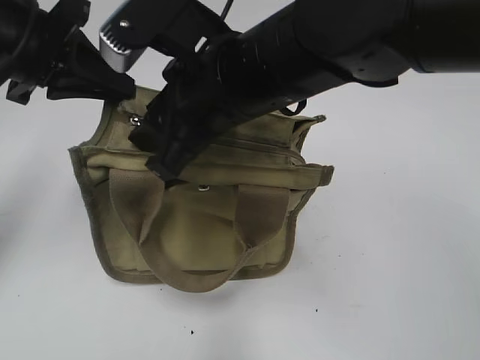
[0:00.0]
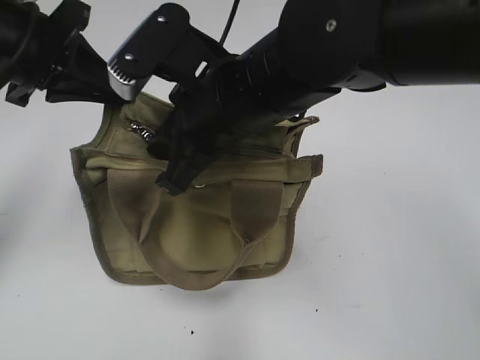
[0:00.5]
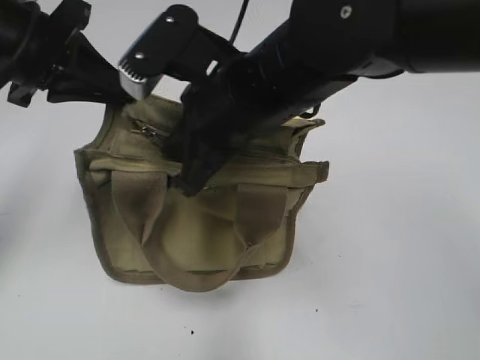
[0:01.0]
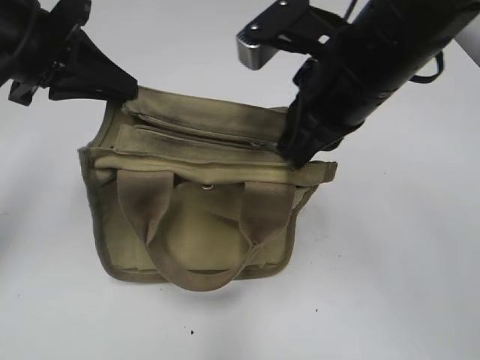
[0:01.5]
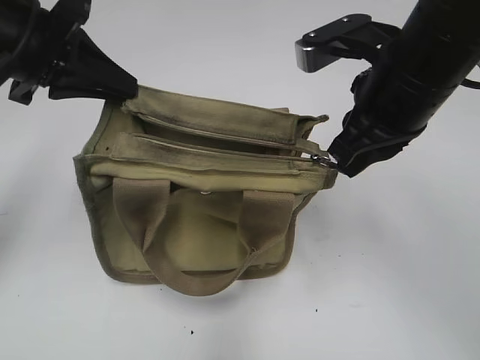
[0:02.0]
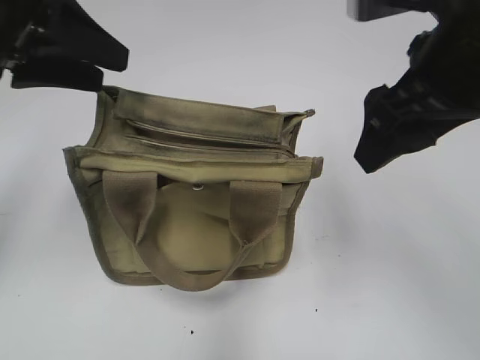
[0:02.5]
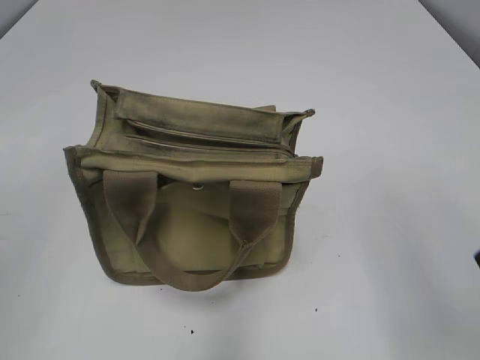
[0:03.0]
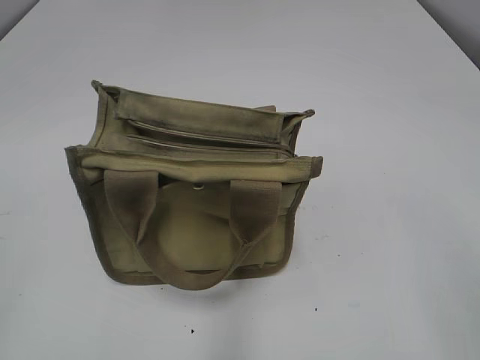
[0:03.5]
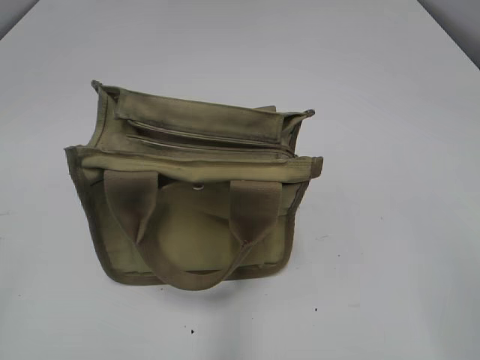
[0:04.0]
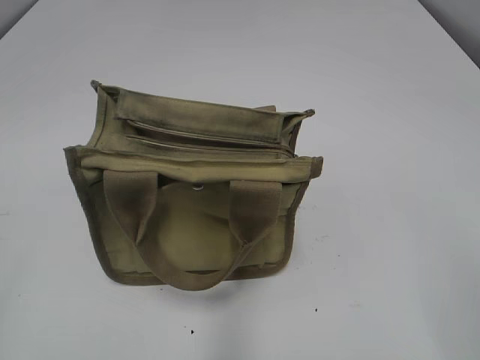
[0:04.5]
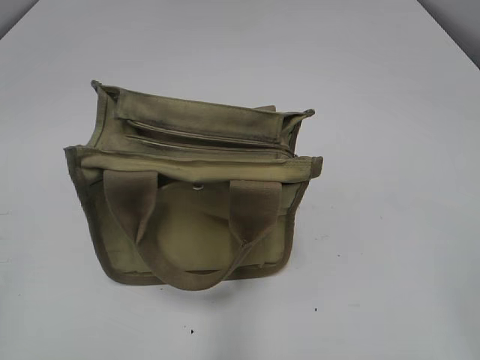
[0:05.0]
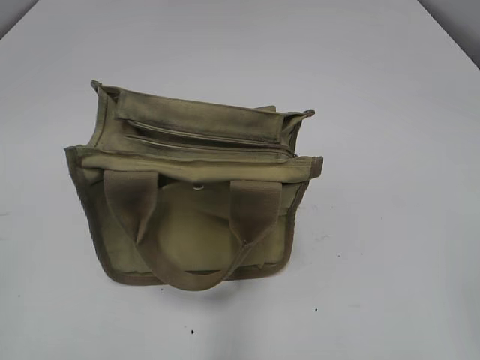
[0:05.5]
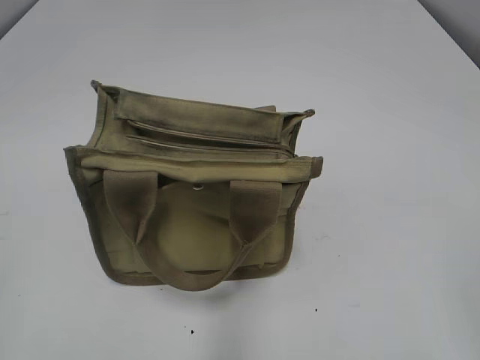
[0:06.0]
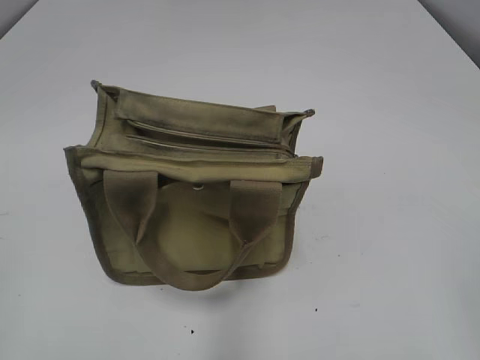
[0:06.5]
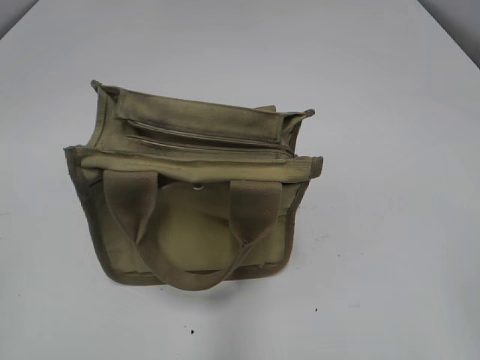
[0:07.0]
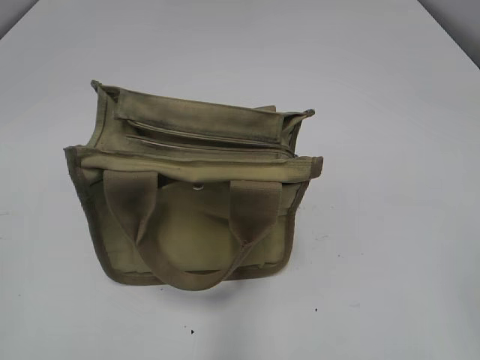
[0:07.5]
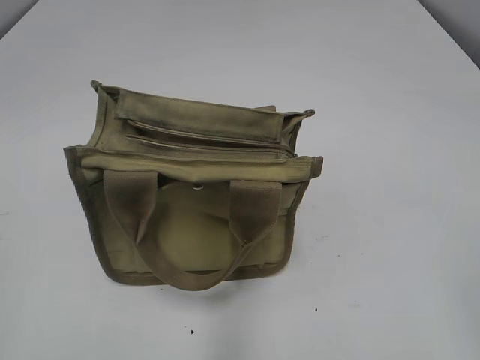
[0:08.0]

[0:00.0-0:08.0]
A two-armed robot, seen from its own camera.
Step, 0:00.0 to 0:02.0: Pull open the zipper with your right hand.
0:00.0 to 0:02.0: The right gripper travels to the right by some 15 cm, and closes its fingers.
0:02.0 to 0:04.0: The right gripper shifts some 30 cm backward and to the right, and opens up; the left gripper goes roughly 30 cm backward and to the left, and opens up.
0:06.0 to 0:08.0: Both grippers stay about where they are.
